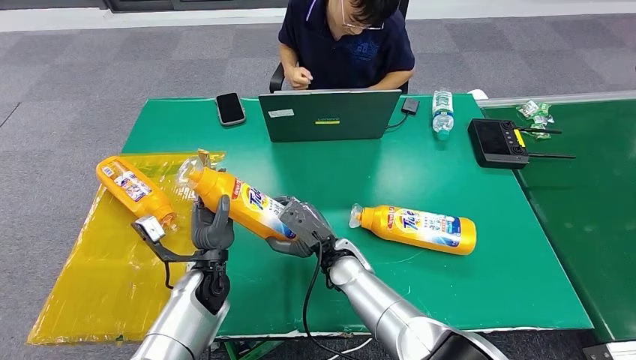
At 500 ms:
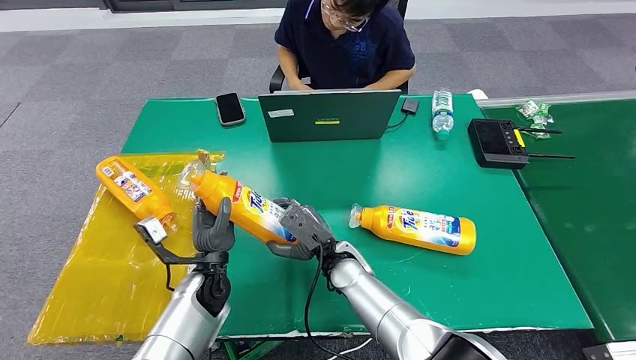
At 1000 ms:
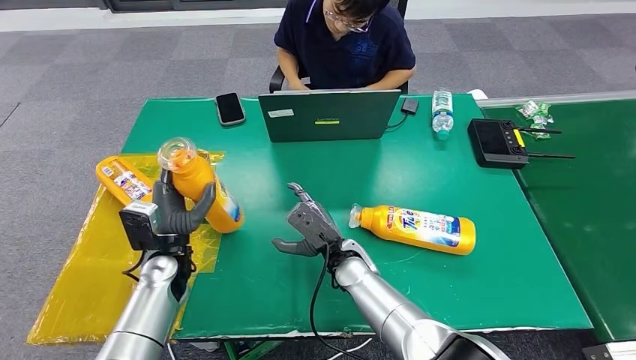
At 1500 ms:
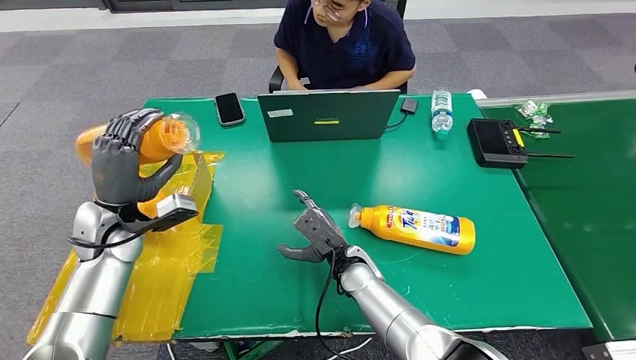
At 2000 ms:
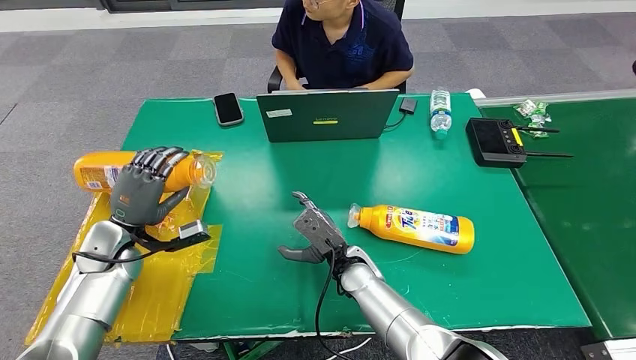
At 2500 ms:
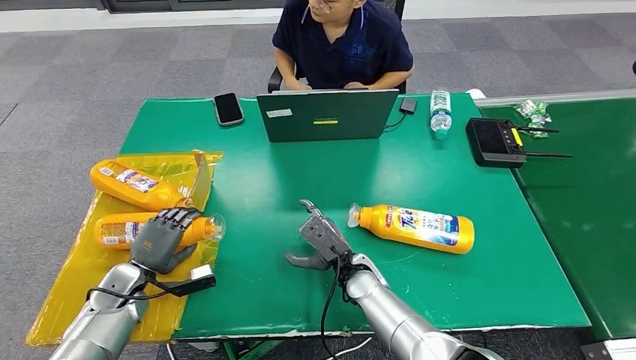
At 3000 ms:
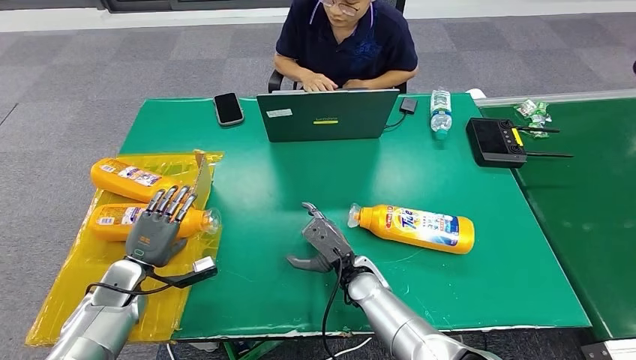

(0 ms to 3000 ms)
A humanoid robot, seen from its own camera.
Step, 0 ms - 3000 ms: Turn the bottle to the front side.
0 ms - 1500 ms: The left hand shifts approximately 20 cm to the left and upward.
1500 ms - 3000 ms: The left hand heads downward, covering roughly 15 cm.
